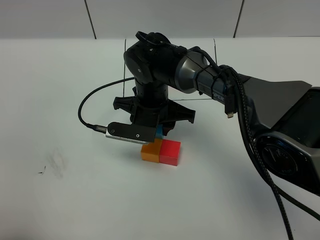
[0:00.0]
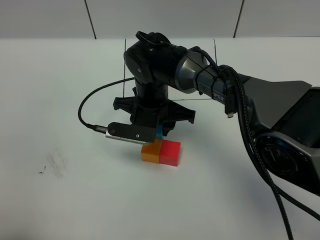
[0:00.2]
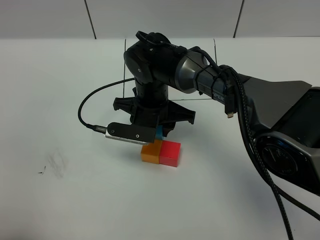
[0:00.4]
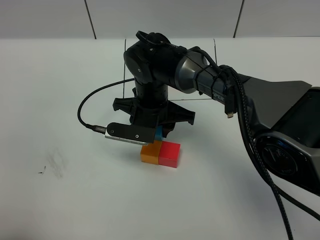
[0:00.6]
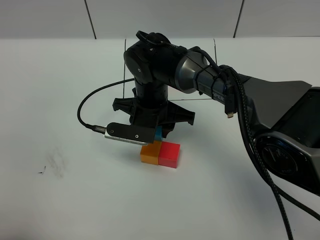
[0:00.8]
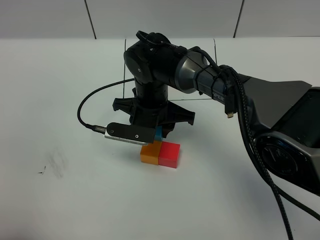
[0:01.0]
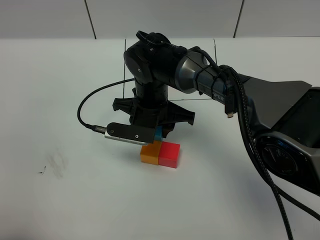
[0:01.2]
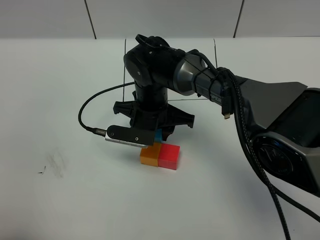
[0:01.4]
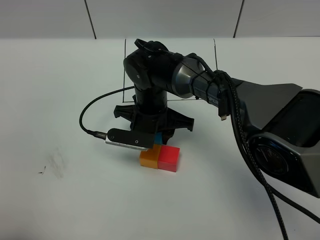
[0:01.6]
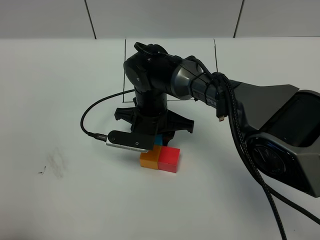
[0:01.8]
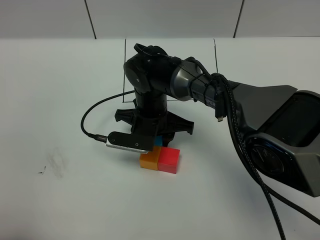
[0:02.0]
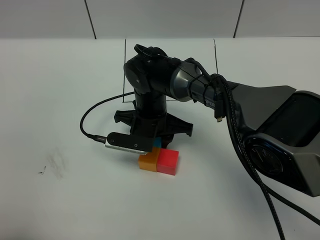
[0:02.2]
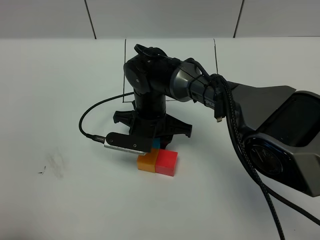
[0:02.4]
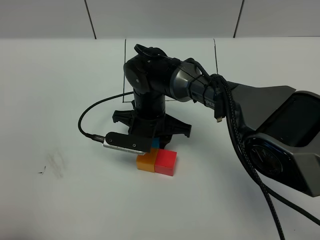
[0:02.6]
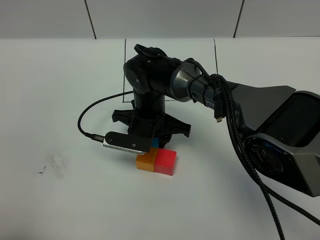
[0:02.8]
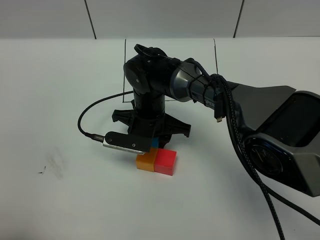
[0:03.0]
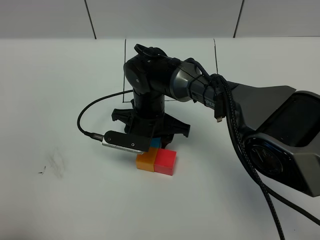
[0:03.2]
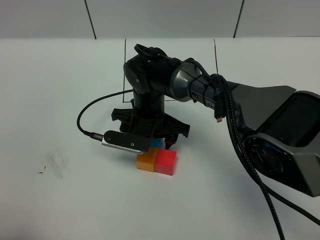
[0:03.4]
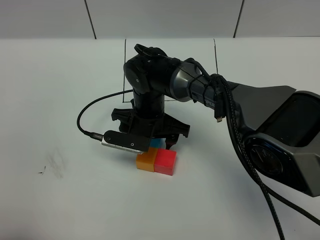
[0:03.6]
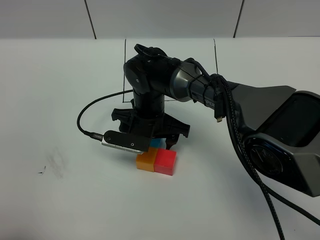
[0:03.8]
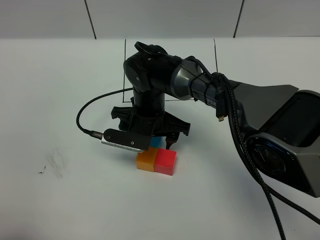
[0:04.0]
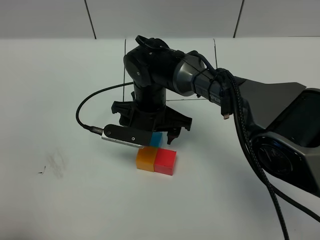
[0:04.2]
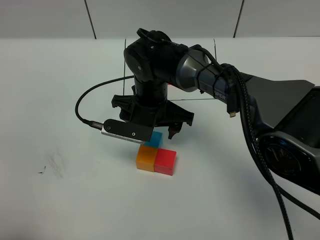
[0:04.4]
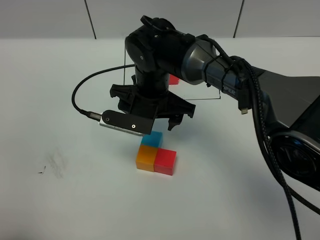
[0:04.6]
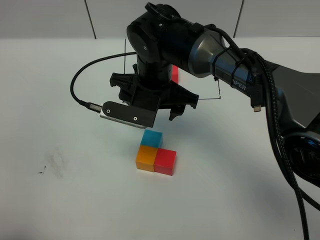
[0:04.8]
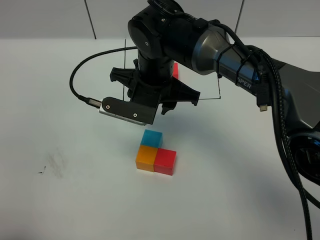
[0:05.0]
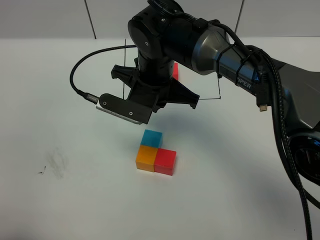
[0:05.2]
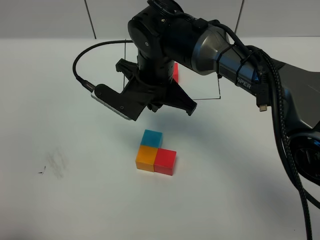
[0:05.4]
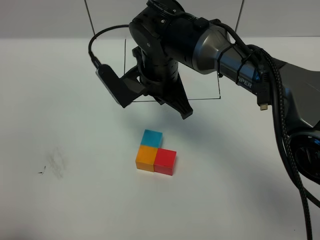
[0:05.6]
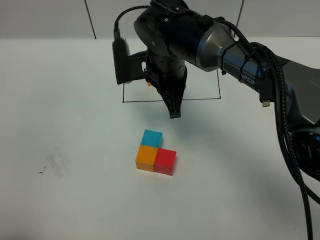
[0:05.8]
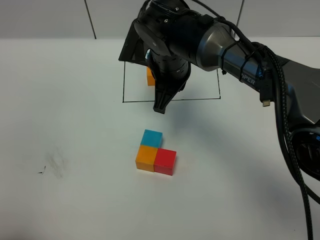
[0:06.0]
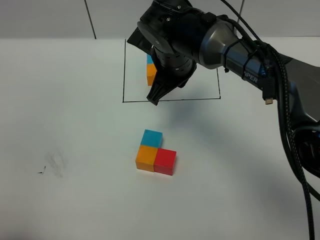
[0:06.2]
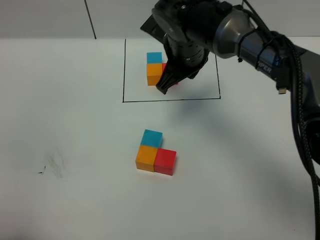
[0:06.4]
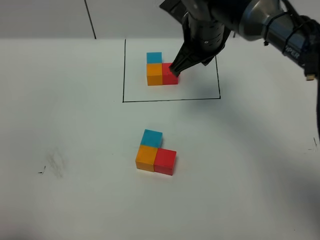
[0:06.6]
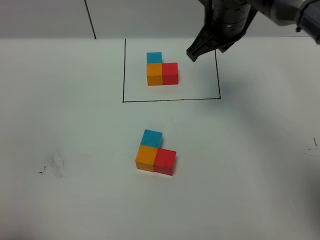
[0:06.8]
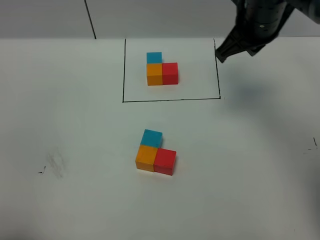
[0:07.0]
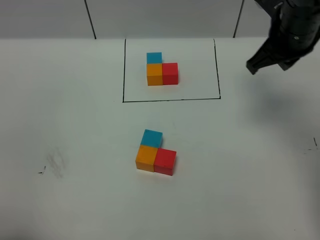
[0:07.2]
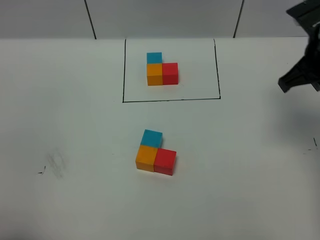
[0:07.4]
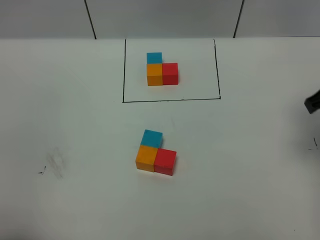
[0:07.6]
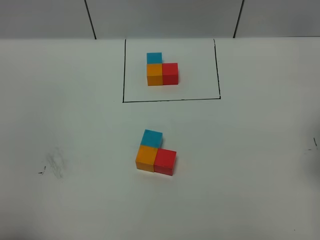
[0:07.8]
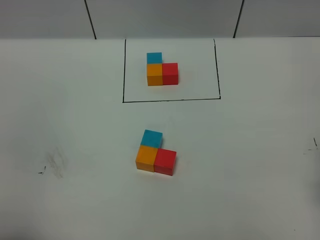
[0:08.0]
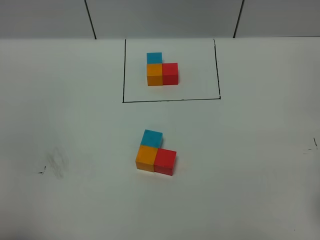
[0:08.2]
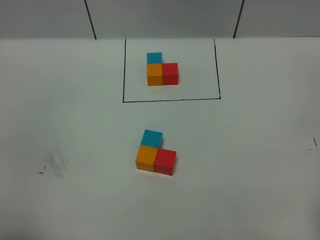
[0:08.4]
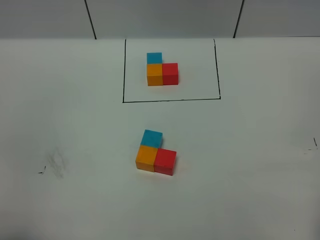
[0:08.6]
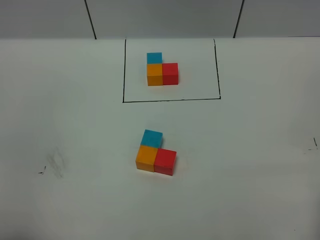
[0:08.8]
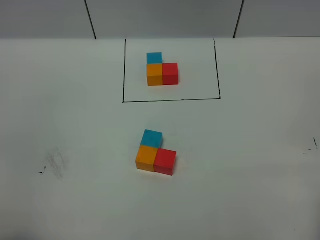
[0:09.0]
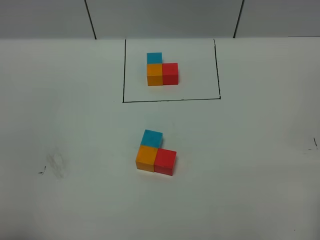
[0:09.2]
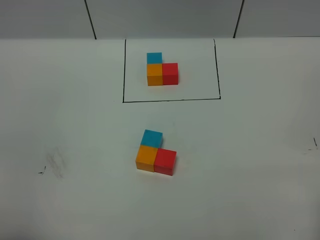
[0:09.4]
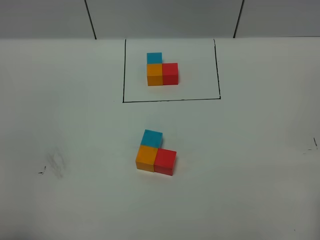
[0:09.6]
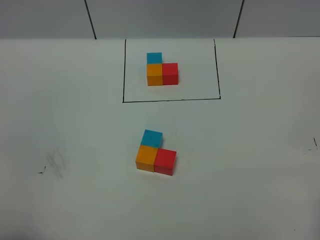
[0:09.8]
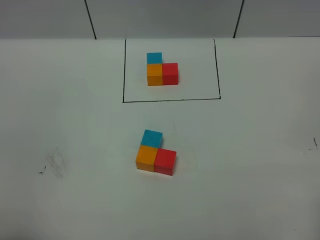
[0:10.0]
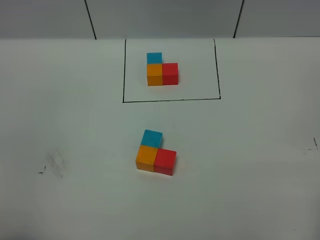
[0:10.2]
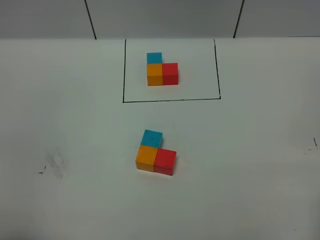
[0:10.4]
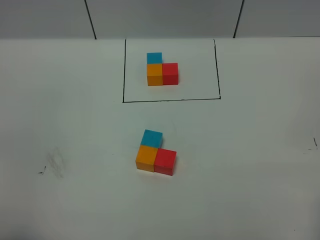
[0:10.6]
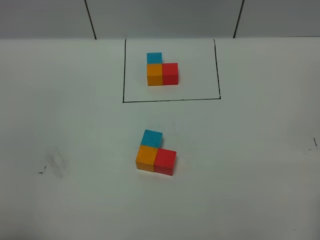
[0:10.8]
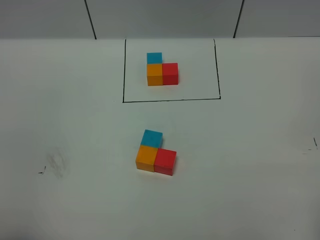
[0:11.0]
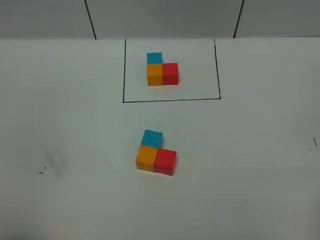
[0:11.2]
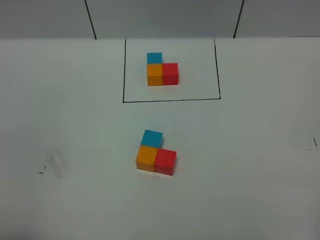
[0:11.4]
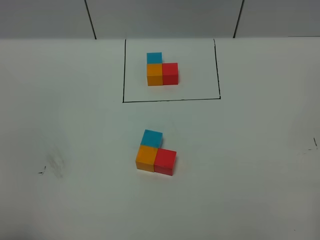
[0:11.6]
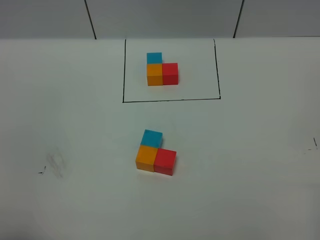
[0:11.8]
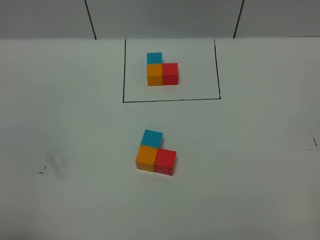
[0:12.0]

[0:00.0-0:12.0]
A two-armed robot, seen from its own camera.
Task of the whole recording: According to the building block template in front, assemble the scattered blocks together.
Step, 0:00.0 to 0:04.4: Put the blue cube on the behind of the orange cube.
0:00.0 to 0:01.6: The grippers stay close to where they were, moving slightly.
0:01.6 to 0:03.0: The two grippers keep their place.
0:03.0 to 0:04.4: The right gripper opens up.
0:04.4 to 0:06.0: The right gripper moves upward, about 5 cm, and closes up.
0:06.0 to 0:07.6: The right gripper moves to the right, roughly 30 cm.
0:07.6 to 0:09.0: The right gripper is displaced backward by approximately 20 cm.

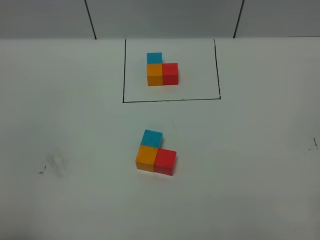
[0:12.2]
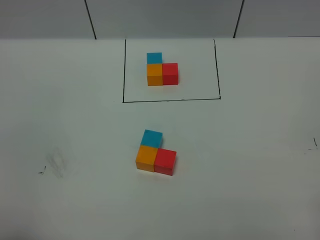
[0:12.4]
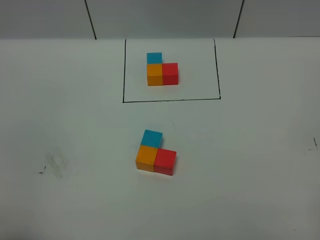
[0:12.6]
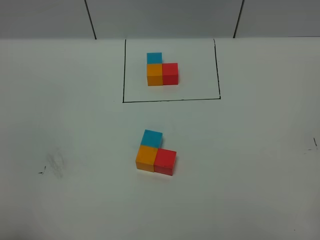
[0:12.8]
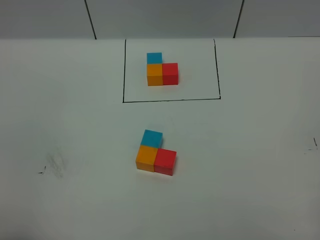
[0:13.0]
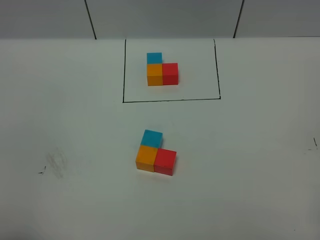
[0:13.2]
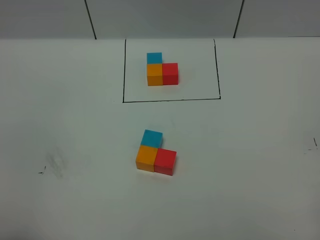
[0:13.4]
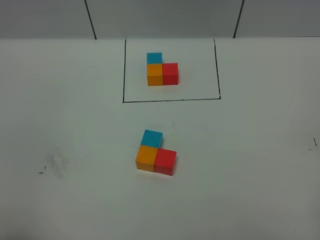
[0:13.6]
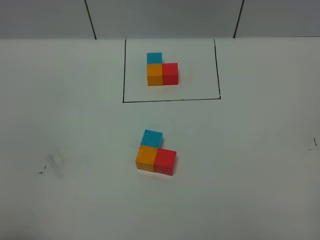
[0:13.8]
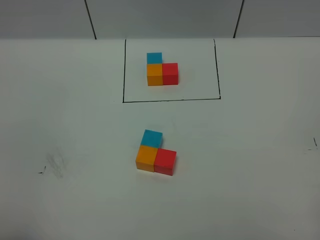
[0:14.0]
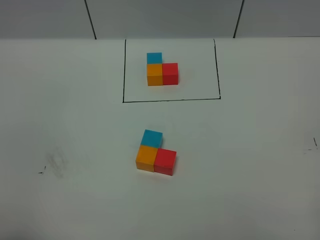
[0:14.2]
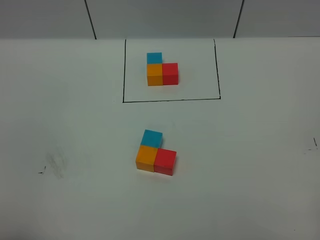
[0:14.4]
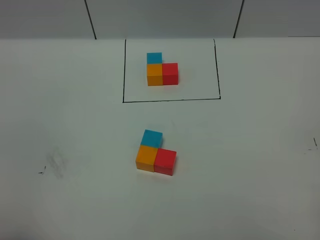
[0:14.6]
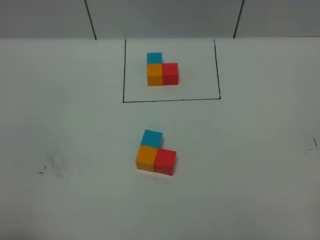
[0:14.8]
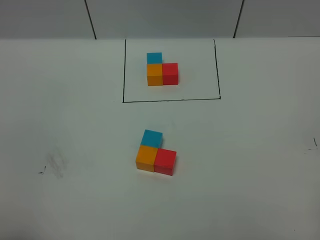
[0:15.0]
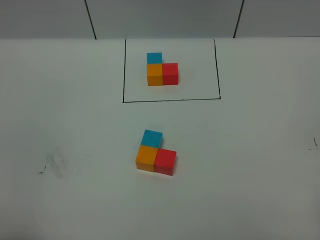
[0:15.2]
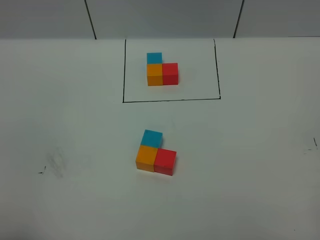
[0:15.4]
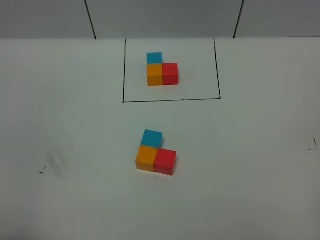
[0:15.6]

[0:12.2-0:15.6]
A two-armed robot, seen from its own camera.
Task of the whole recording: According to the building block template in front, assemble the scattered blocks together.
0:13.8 to 0:15.6: The two grippers keep their place.

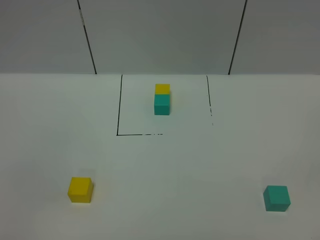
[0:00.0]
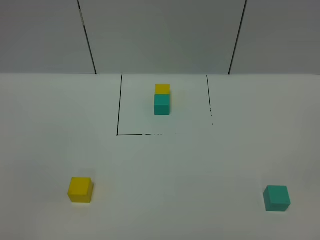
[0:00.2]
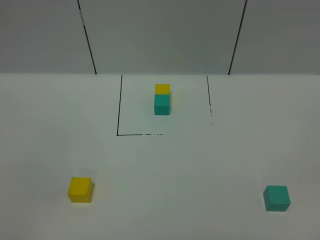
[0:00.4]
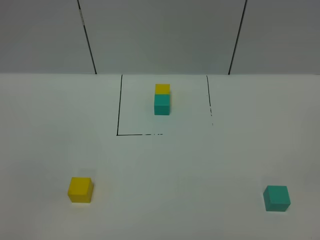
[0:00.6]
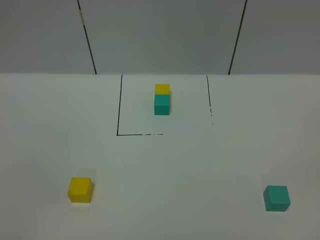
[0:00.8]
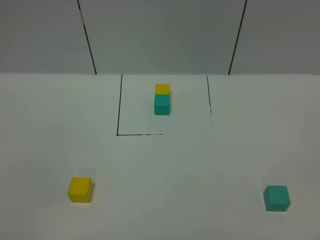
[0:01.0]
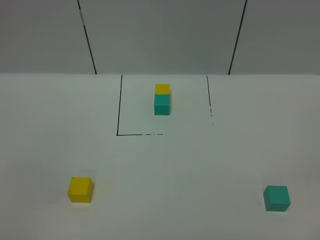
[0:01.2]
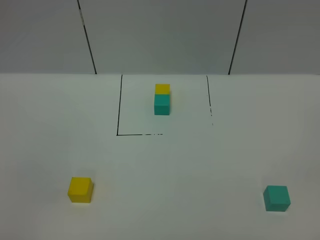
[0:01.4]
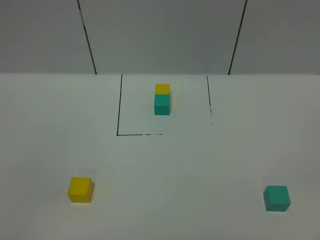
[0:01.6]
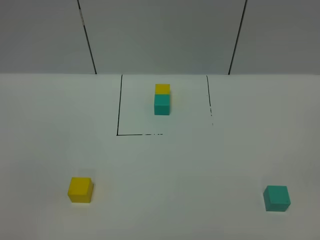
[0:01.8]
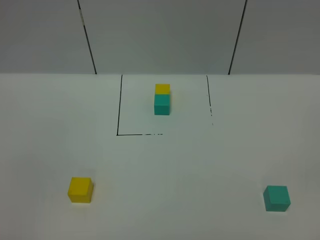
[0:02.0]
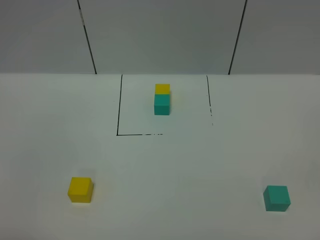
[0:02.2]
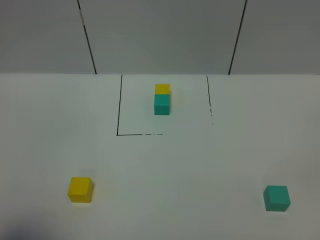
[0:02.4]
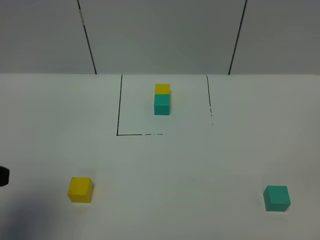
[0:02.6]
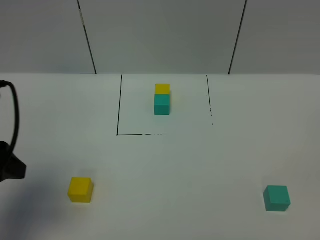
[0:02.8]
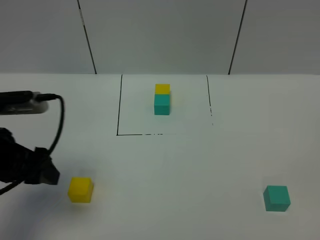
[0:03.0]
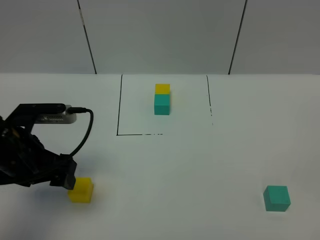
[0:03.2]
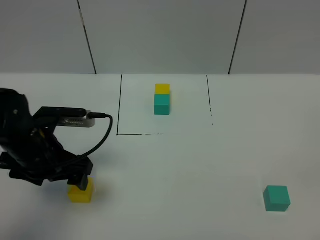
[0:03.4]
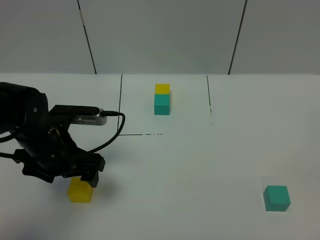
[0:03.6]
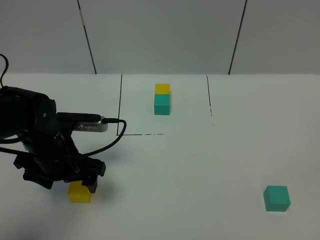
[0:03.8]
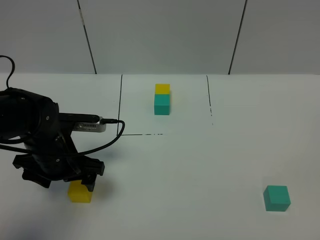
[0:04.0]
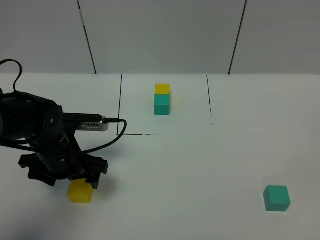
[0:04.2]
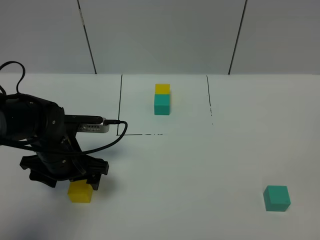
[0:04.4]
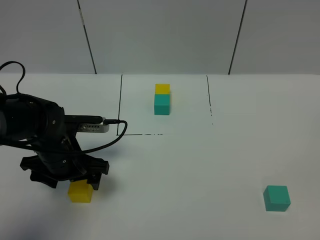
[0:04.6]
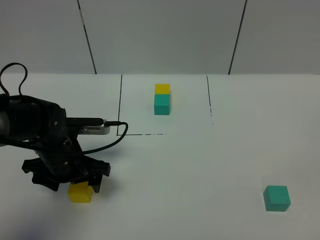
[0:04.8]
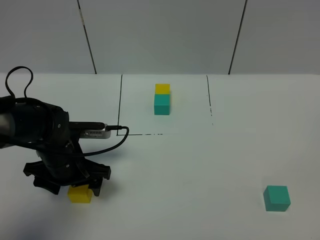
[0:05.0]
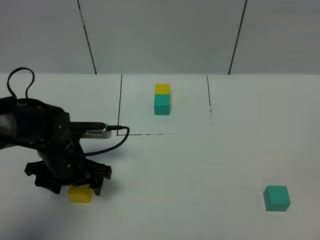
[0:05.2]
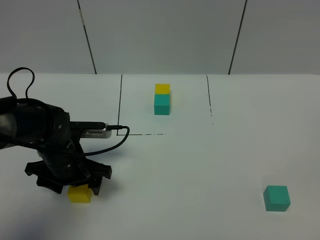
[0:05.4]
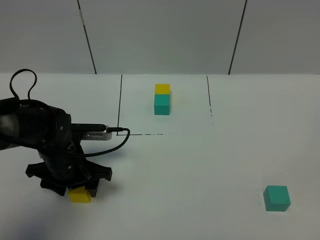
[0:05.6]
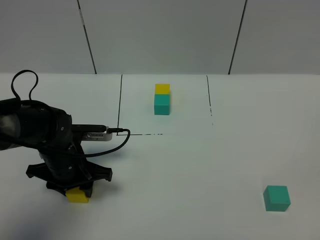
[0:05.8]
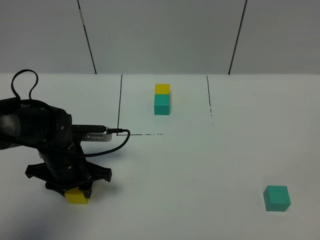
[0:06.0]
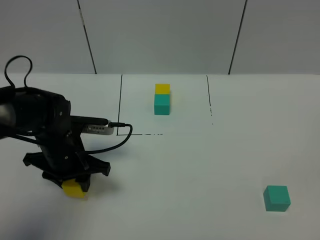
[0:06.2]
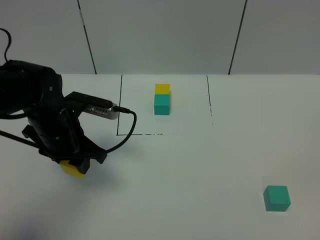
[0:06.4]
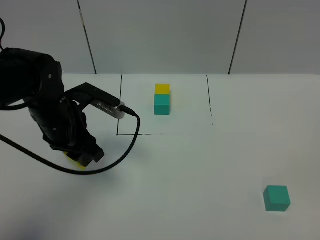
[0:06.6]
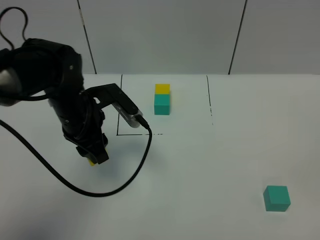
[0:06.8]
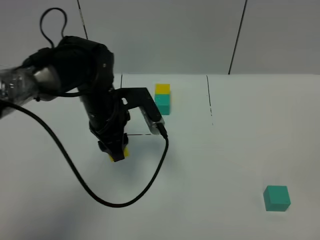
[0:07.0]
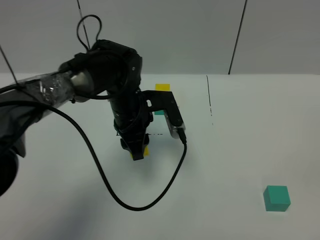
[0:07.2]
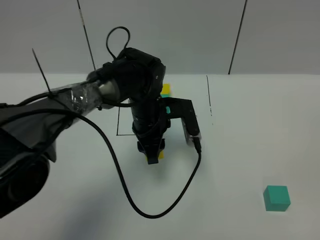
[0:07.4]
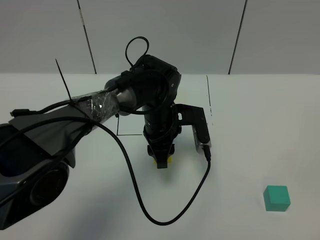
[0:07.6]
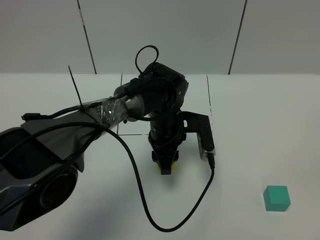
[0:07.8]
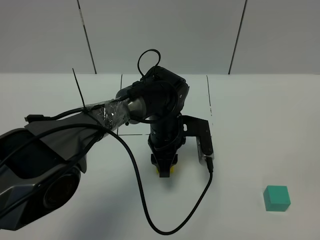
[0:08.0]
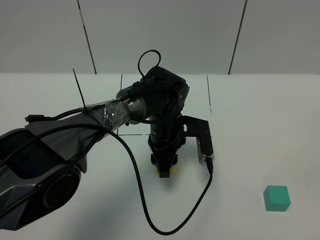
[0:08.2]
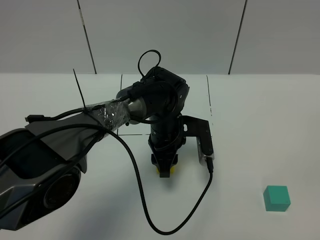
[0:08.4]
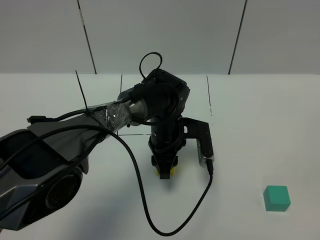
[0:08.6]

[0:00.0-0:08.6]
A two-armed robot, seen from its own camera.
Task of the whole recording: According to the building block template in front, assemble the scattered blocks together.
0:00.0 to 0:01.4: Both grippers stay about where they are.
0:01.4 to 0:02.8: The left gripper travels forward by approximately 20 cm.
0:02.8 to 0:04.4: The left gripper shifts approximately 20 cm downward, forward and to the right.
0:04.4 to 0:05.8: The left gripper closes up.
0:05.8 to 0:07.2: The left gripper heads to the right, forward and upward, covering approximately 15 cm.
0:07.2 to 0:08.6: The left gripper travels to the right and downward by some 10 cm.
